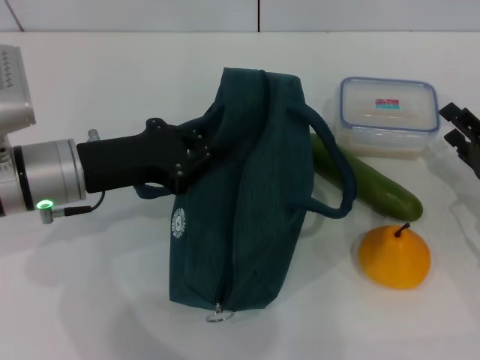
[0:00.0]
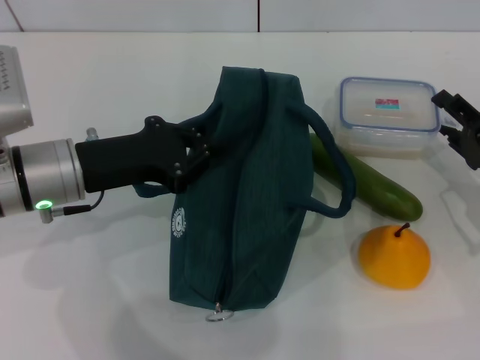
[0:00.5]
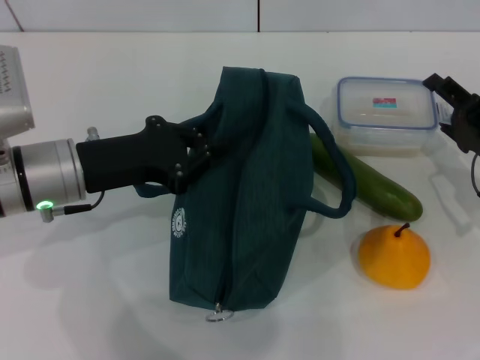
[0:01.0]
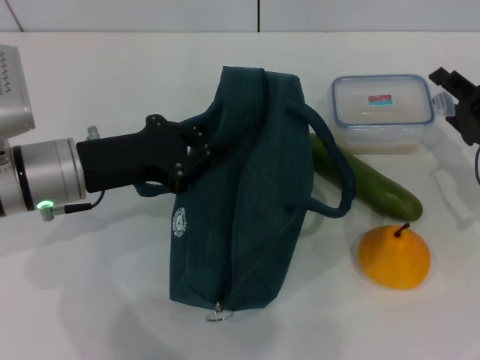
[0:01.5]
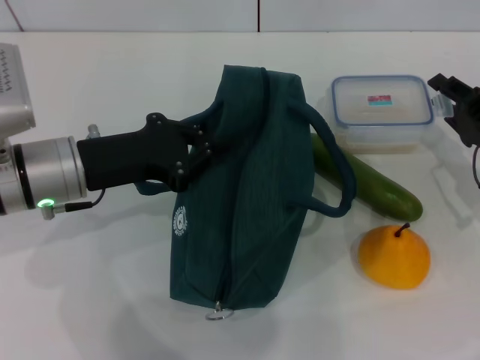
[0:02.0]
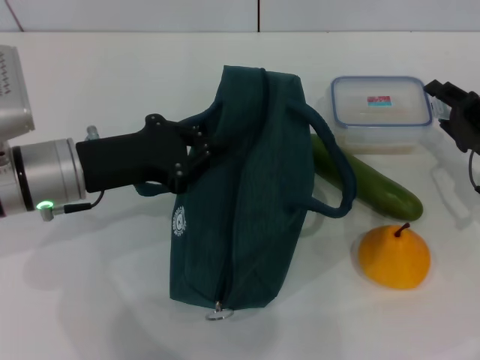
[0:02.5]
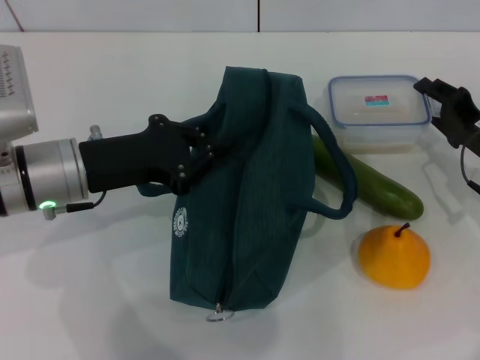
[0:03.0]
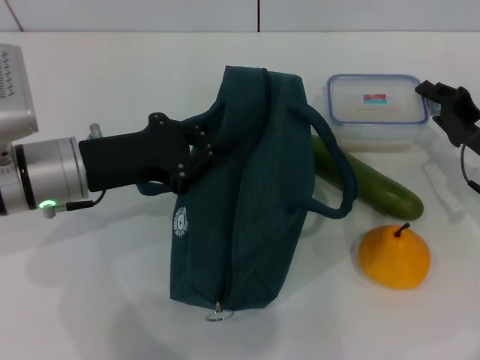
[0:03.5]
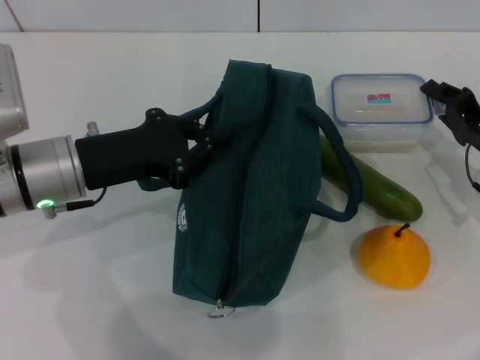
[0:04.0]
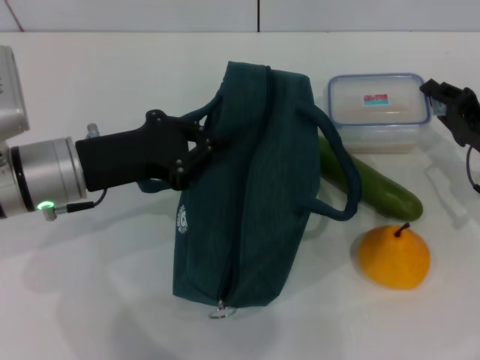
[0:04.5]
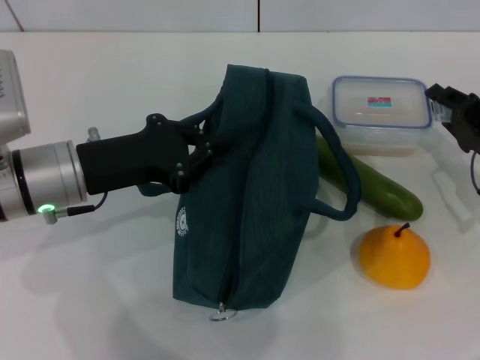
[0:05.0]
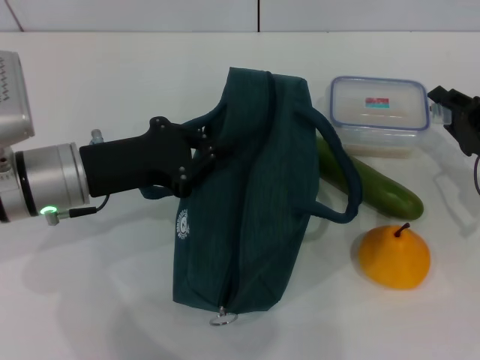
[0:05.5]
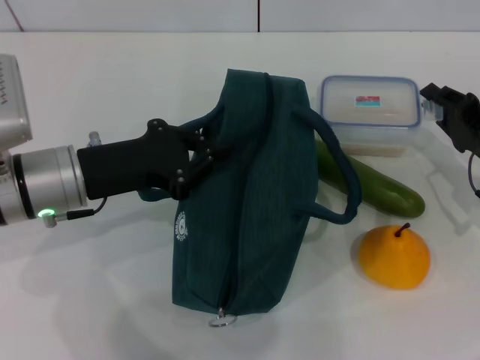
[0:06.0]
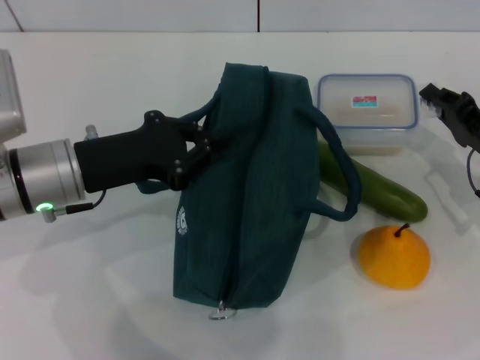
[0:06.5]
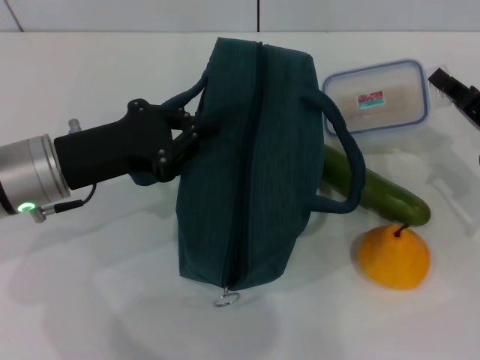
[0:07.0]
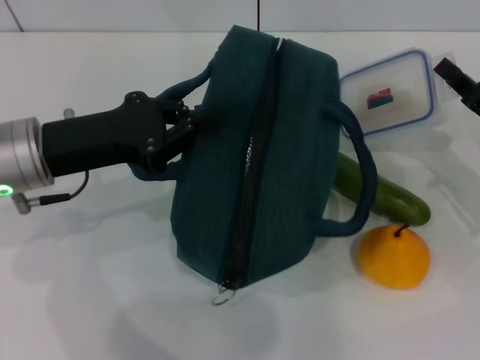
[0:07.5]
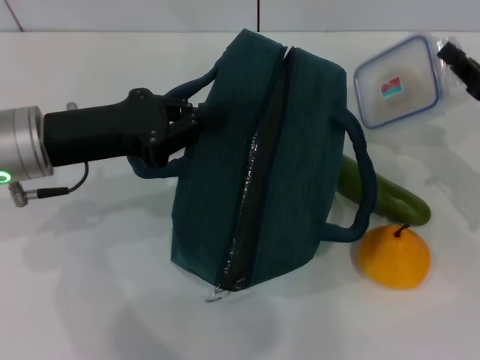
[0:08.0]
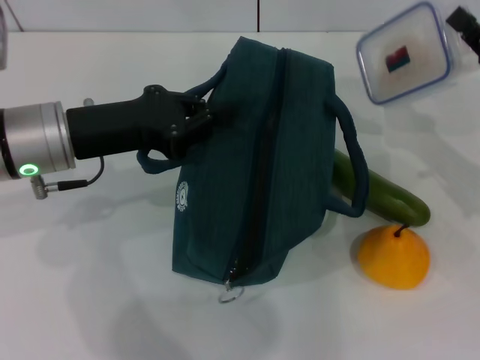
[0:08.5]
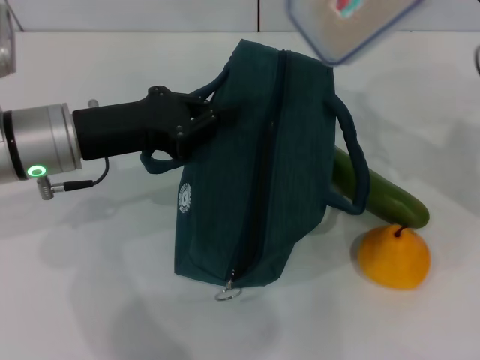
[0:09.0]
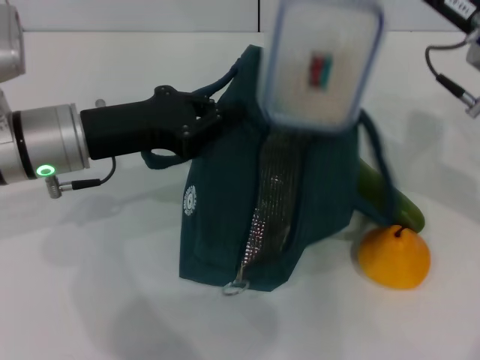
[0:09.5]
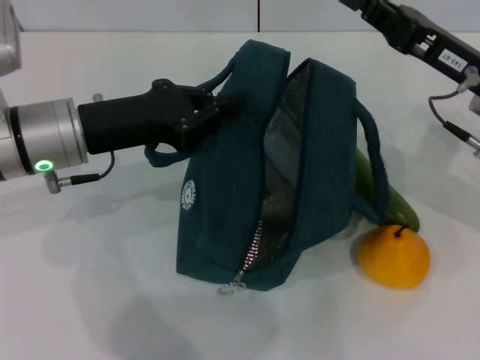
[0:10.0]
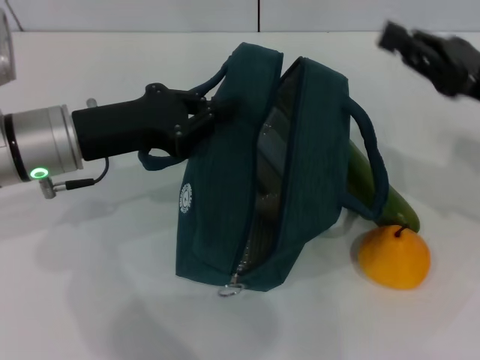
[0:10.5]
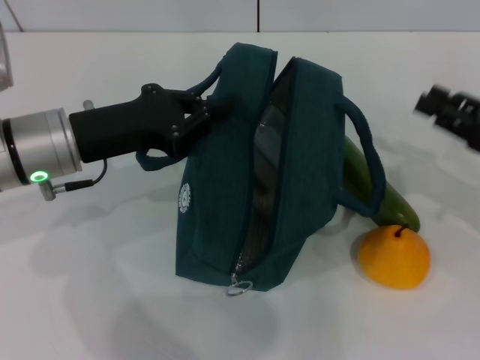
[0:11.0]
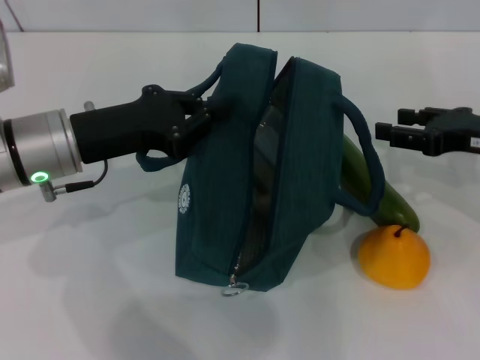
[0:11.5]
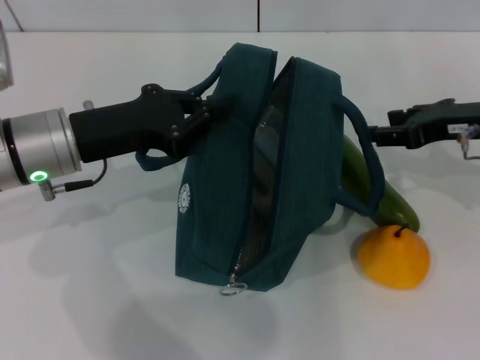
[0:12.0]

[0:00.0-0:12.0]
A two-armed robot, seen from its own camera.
Step, 0:00.0 to 0:04.0: Pick up the lunch box with your right hand.
Step, 0:05.0 to 0:09.5: Place the lunch box into the lunch bag with your right hand.
0:00.0 to 0:02.0: The right gripper moves roughly 5 cm.
0:02.0 to 0:04.0: Both grippers stay about where they are.
0:04.0 to 0:06.0: There are only small adjustments of the grippers.
0:08.0 to 0:10.0: The right gripper moves to the left and upward, roughly 10 cm.
0:10.0 to 0:12.0: The right gripper reaches about 10 cm to the right, then returns, and opens its fingers.

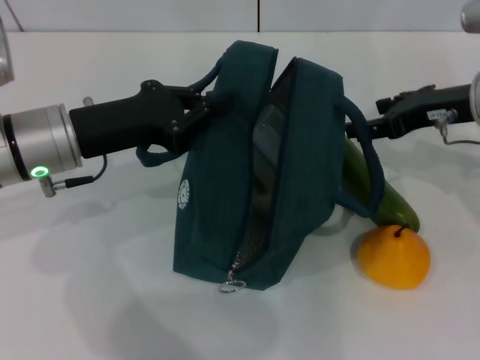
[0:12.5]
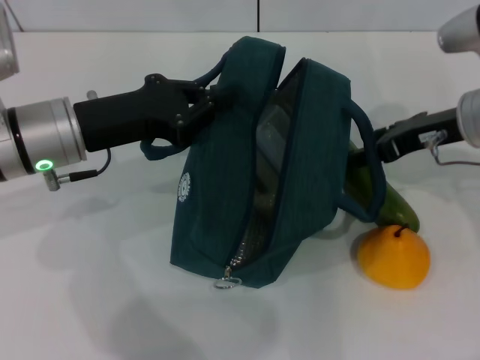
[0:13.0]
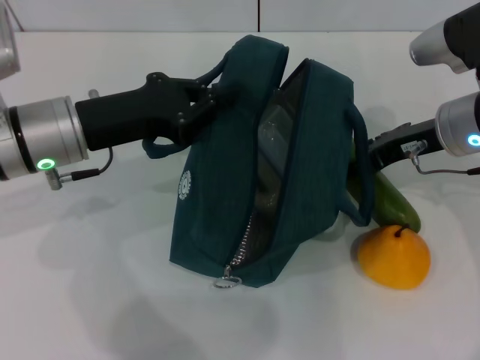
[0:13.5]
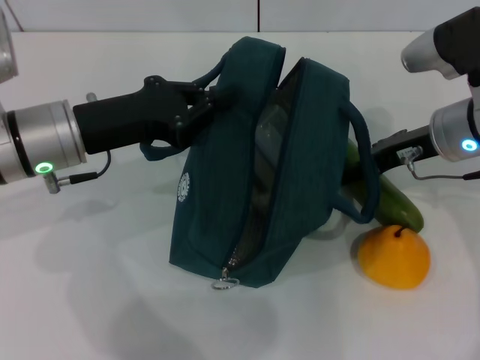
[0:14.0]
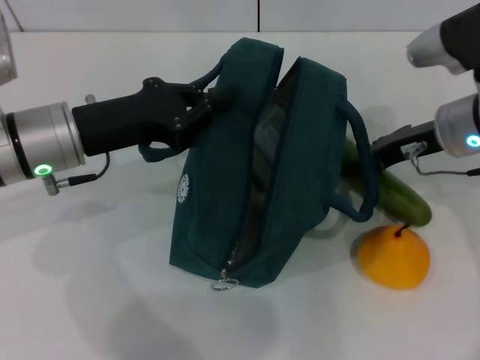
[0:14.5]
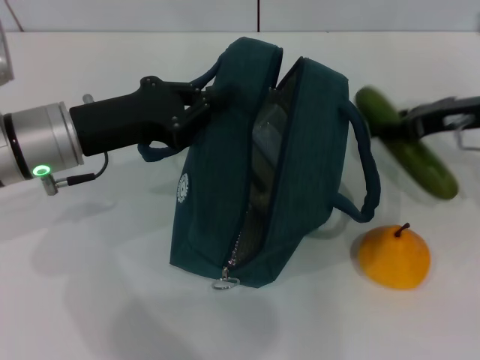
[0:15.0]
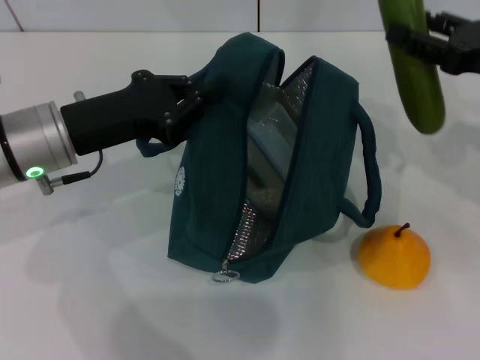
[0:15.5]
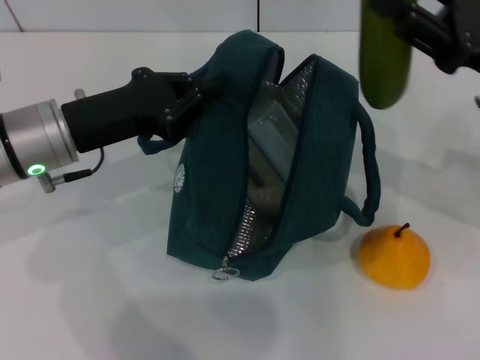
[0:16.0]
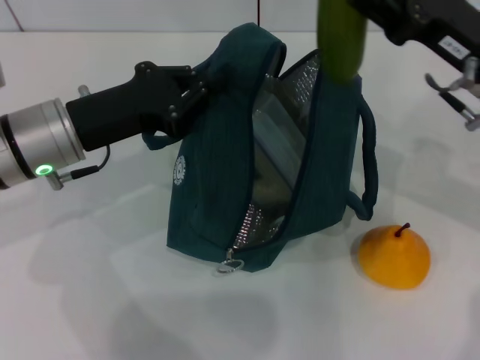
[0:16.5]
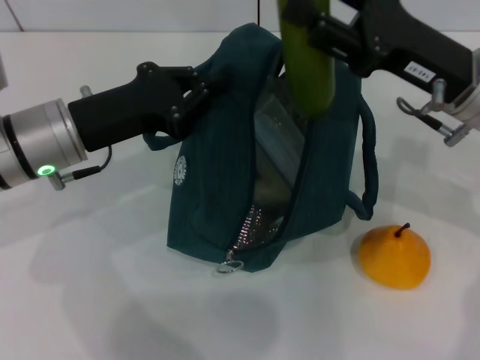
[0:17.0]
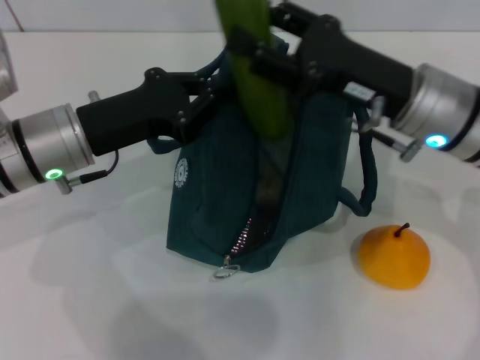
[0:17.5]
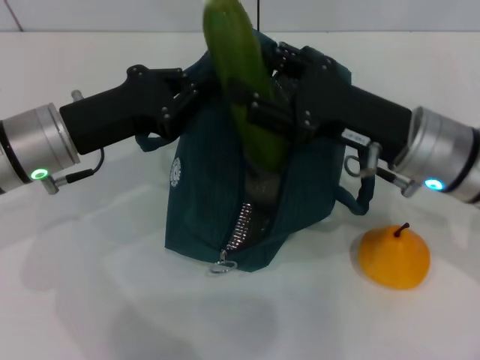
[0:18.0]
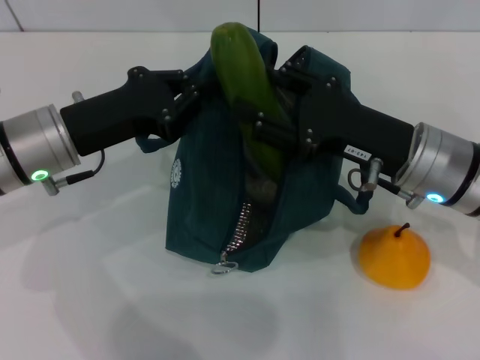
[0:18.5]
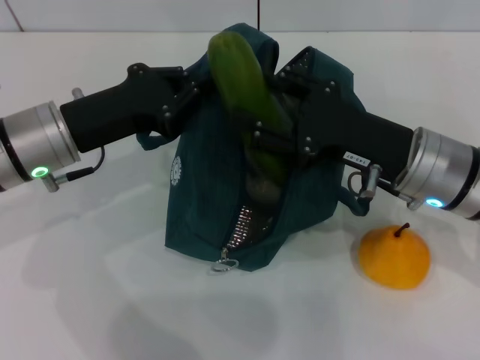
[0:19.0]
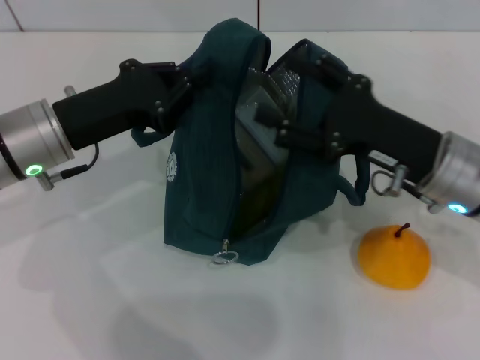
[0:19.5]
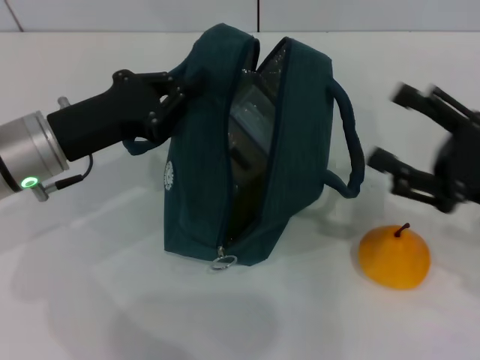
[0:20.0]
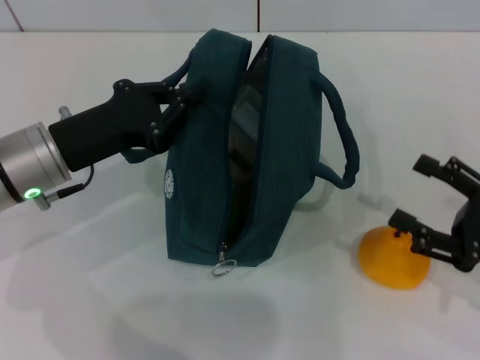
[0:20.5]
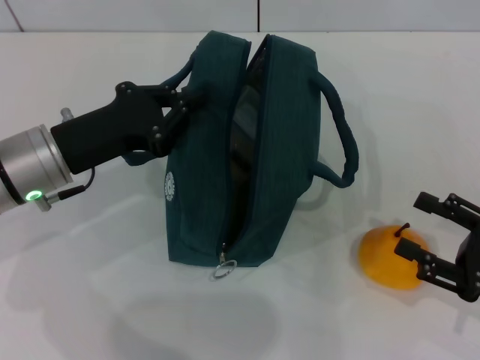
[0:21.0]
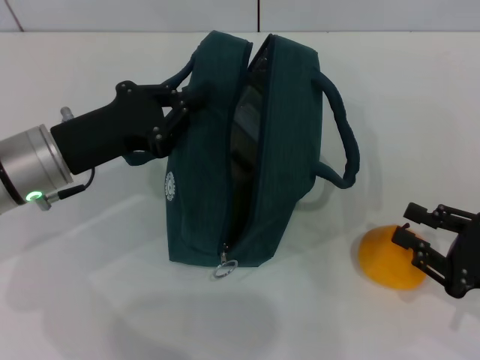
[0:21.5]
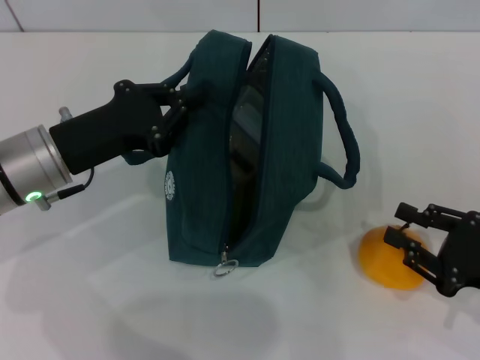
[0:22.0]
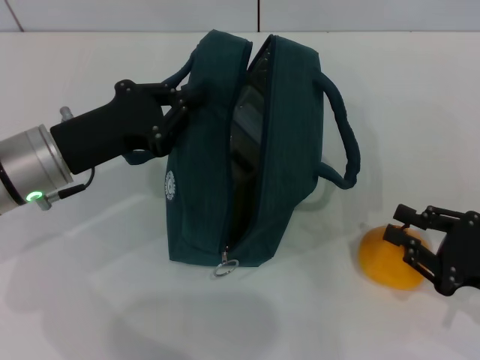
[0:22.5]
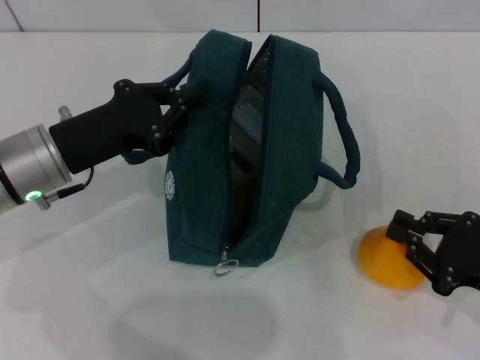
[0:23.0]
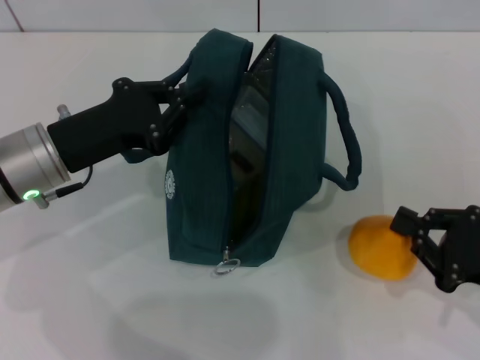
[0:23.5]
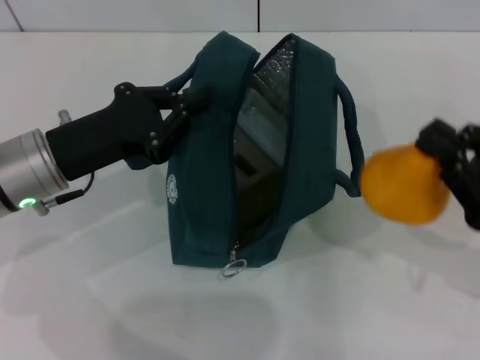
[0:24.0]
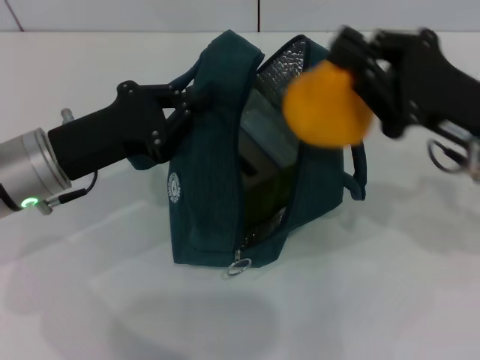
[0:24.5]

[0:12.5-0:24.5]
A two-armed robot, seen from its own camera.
Step, 0:14.5 to 0:19.0: Put the cucumber into the lunch bag with your right hand.
Step, 0:19.5 to 0:23.0: Grab the pear with your right hand.
0:12.5 to 0:14.5: The grippers make only small movements.
0:14.5 to 0:16.5: The right gripper goes to the right and returns, approximately 10 cm each way.
0:16.5 to 0:18.5: The right gripper heads downward, covering about 5 cm.
0:18.5 to 0:20.5: The right gripper heads to the right and backward, covering about 15 cm.
0:20.5 to 0:22.5: The right gripper closes.
0:22.5 to 0:24.5: The right gripper shifts approximately 15 cm upward, forward and to the left.

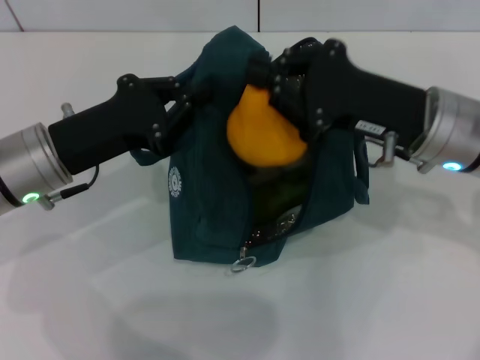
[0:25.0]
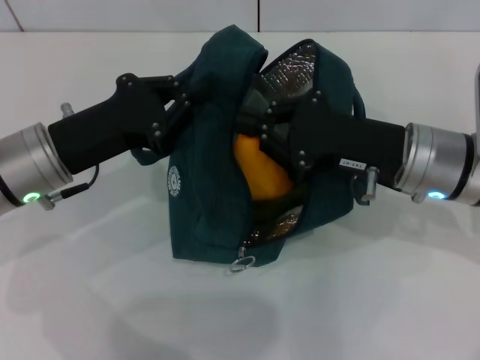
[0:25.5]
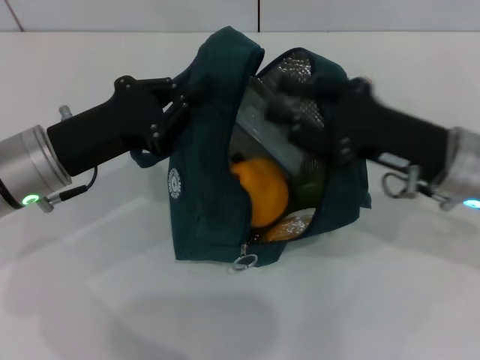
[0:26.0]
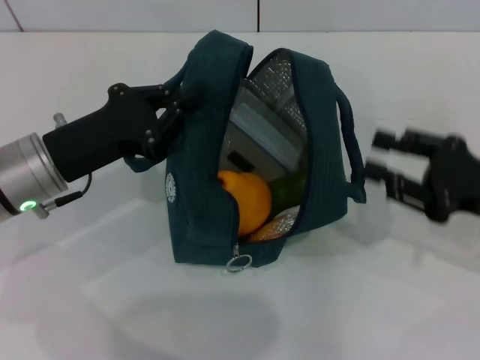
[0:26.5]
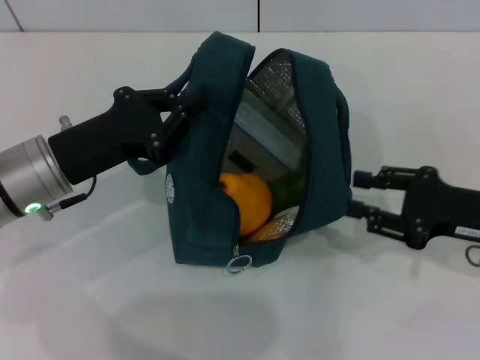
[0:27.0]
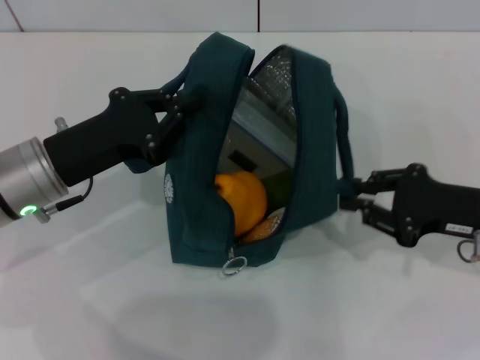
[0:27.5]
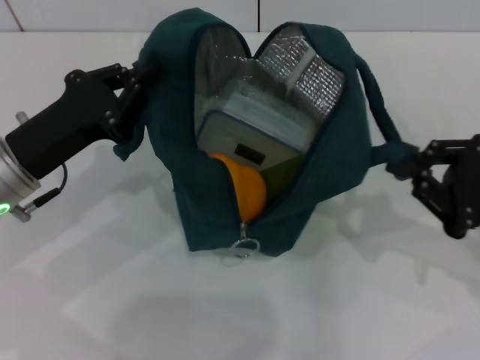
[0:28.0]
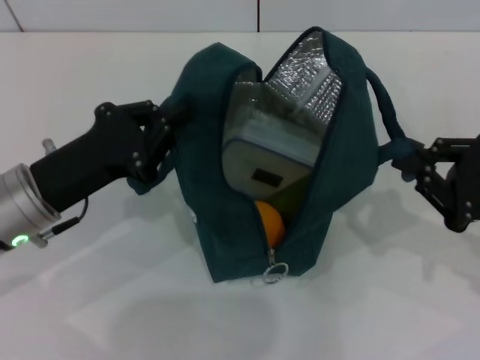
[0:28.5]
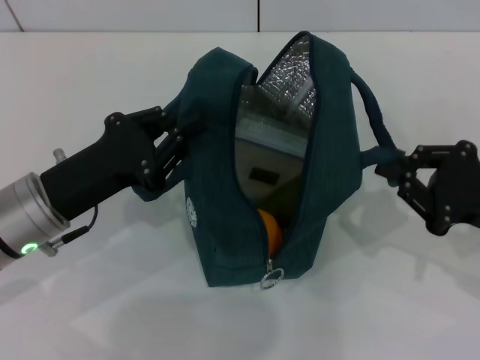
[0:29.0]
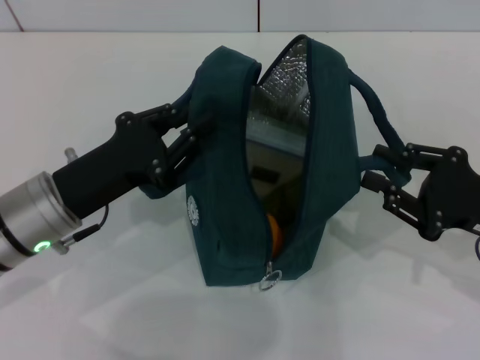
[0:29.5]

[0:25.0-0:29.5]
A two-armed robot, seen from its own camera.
0:25.0 to 0:27.0: The right gripper shifts about 10 cm to the right and downward, and opens.
